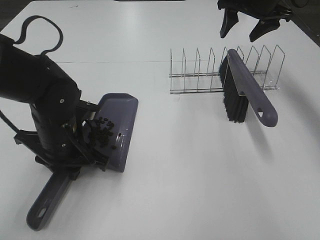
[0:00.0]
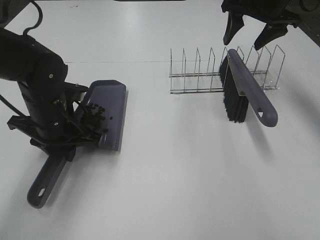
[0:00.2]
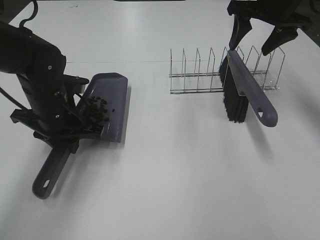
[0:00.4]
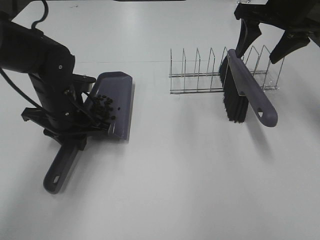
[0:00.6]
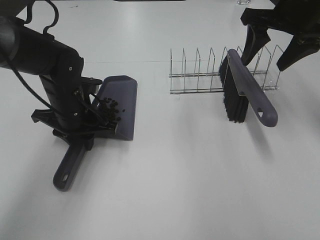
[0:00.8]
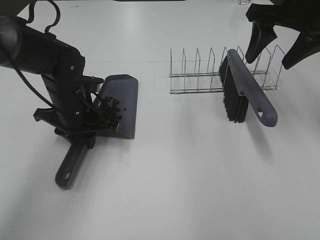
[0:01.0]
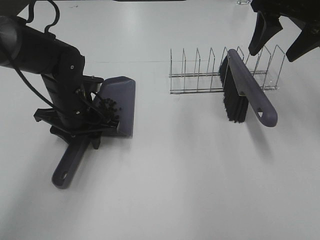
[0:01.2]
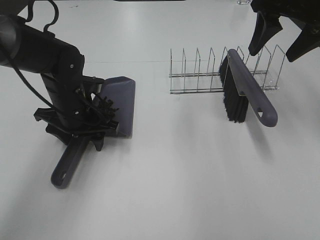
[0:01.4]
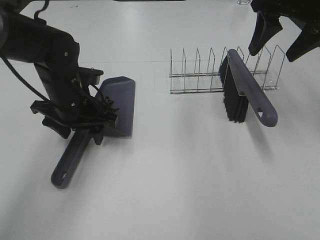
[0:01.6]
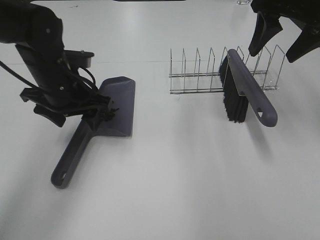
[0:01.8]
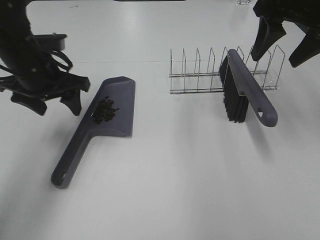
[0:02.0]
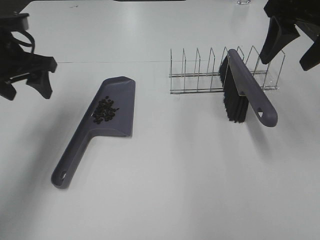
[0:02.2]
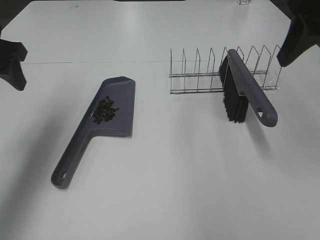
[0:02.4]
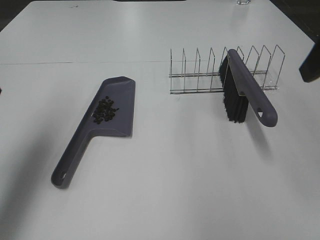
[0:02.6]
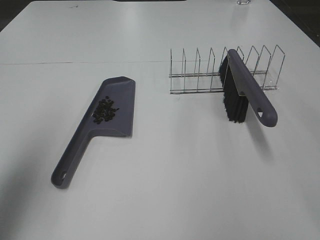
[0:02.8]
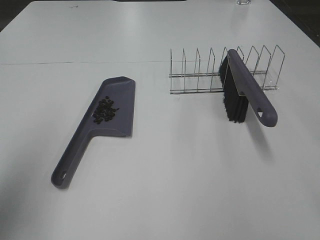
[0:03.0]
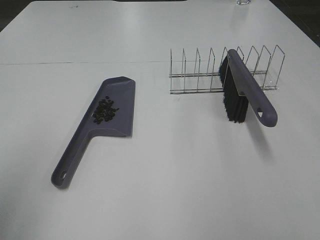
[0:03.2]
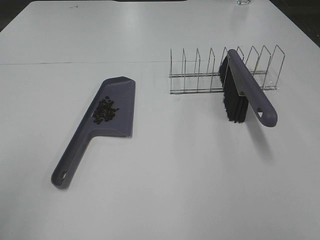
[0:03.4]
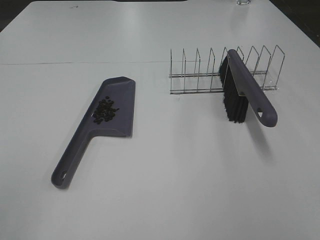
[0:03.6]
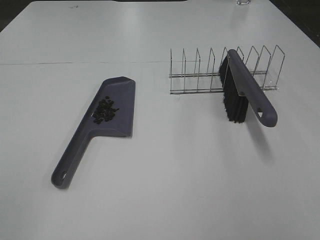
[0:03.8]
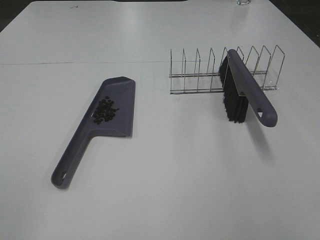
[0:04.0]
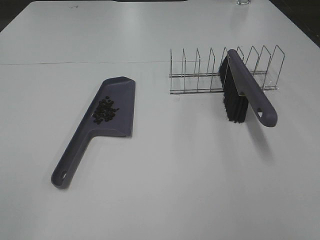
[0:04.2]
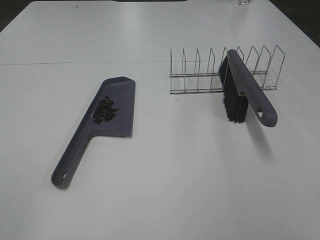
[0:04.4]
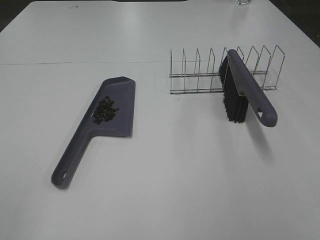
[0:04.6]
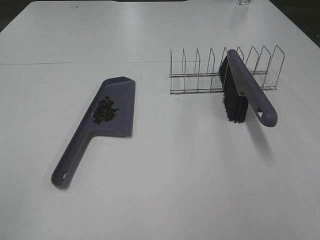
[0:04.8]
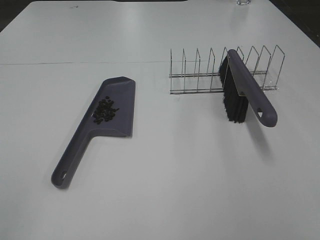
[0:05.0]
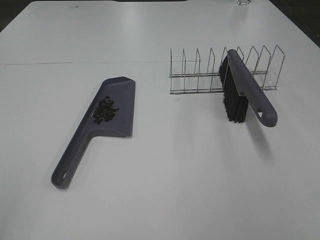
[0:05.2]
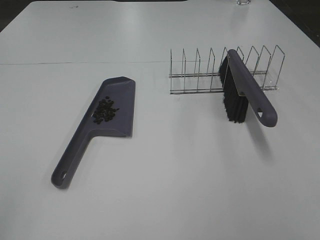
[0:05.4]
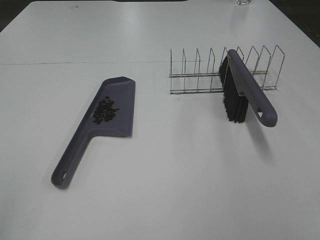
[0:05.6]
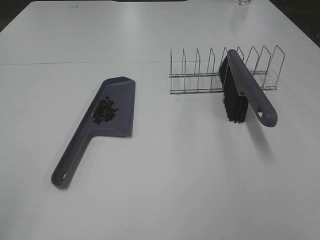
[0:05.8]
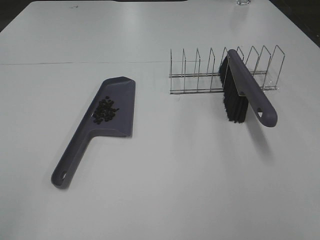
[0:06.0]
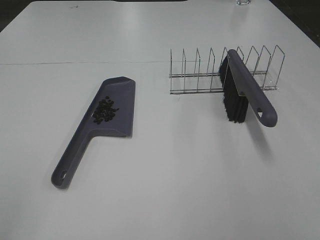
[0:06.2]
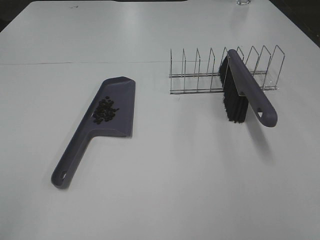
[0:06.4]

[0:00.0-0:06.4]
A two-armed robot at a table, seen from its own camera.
Task of the whole recording: Sweep Coffee Bean.
Step, 0.0 to 1.4 s: Left hand:place the dustpan on the table.
0.0 to 1.6 s: The right gripper goes some 15 cm backward; the left gripper moves forward, some 5 cm, and opens its fingers.
1.6 to 3.2 s: The right gripper goes approximately 30 cm backward, while the left gripper shifts roughly 35 cm backward, upward and to the left.

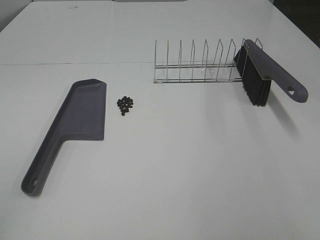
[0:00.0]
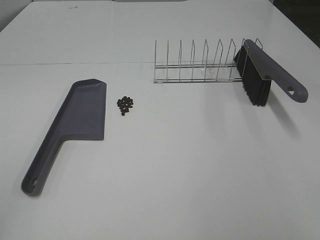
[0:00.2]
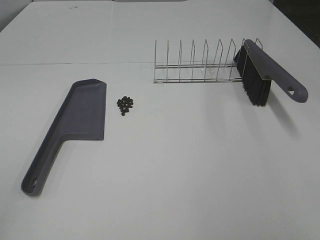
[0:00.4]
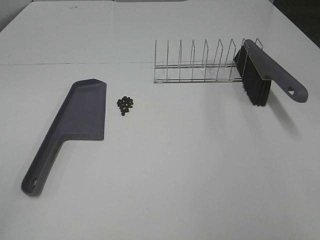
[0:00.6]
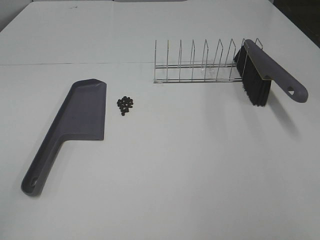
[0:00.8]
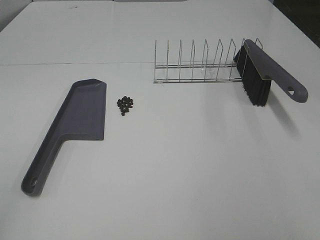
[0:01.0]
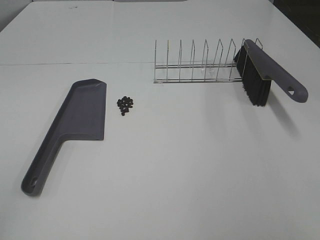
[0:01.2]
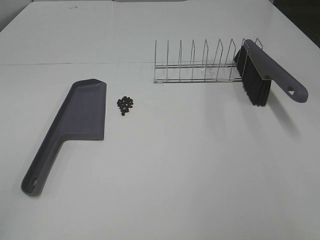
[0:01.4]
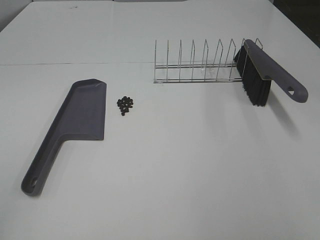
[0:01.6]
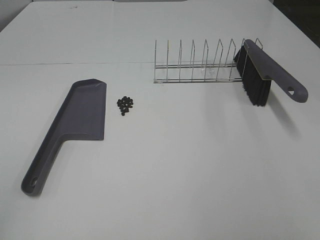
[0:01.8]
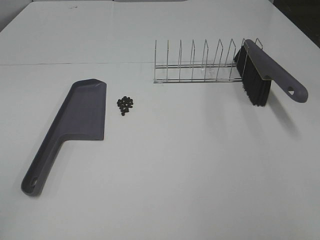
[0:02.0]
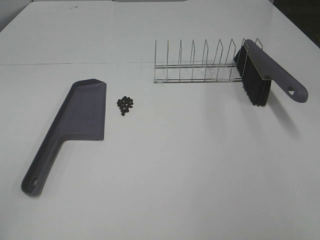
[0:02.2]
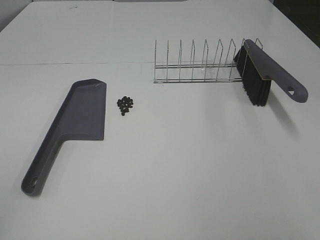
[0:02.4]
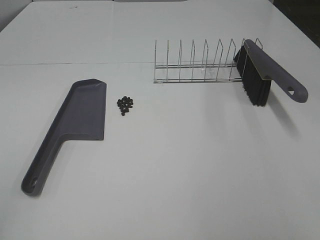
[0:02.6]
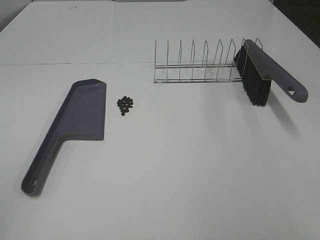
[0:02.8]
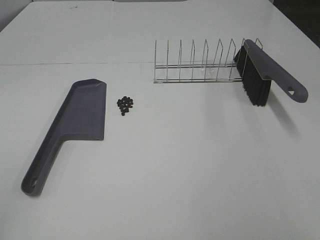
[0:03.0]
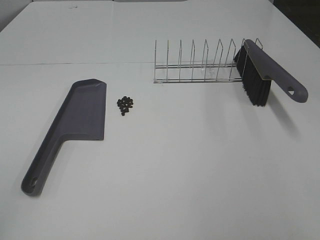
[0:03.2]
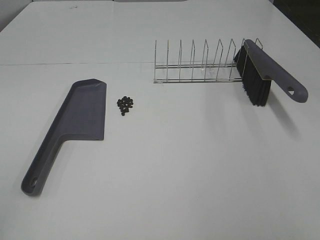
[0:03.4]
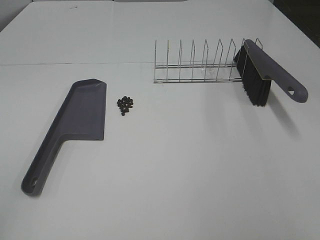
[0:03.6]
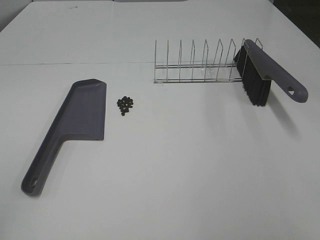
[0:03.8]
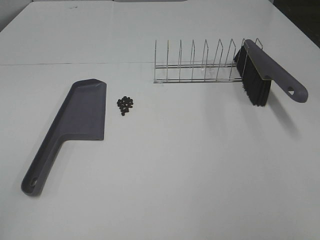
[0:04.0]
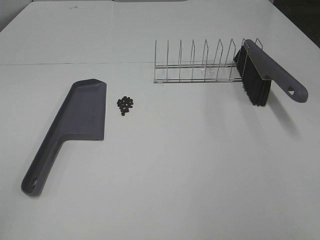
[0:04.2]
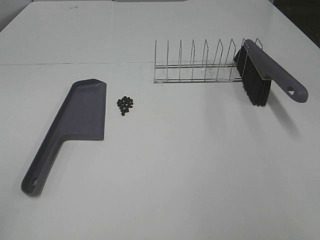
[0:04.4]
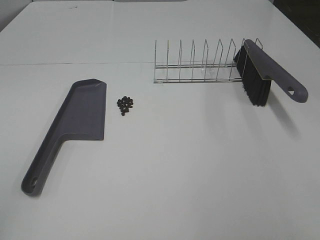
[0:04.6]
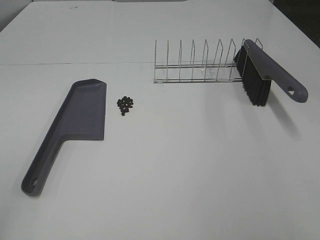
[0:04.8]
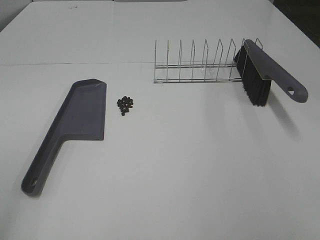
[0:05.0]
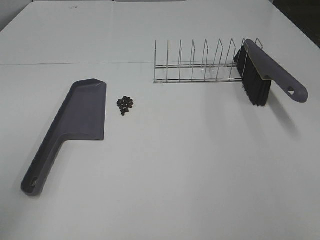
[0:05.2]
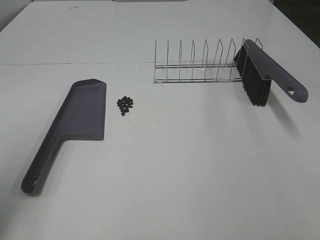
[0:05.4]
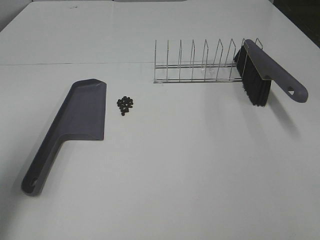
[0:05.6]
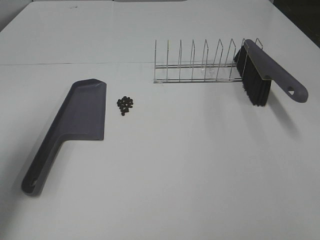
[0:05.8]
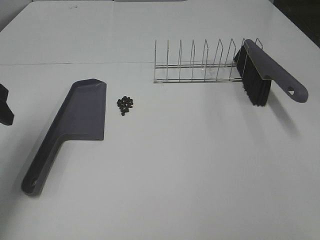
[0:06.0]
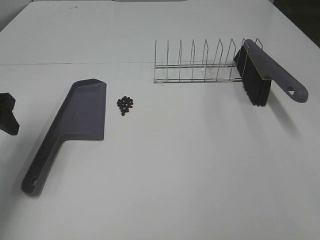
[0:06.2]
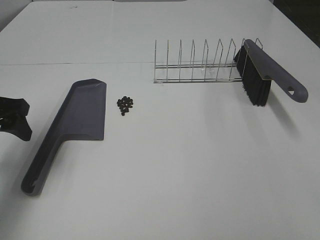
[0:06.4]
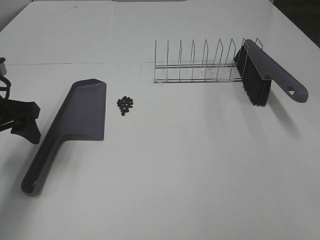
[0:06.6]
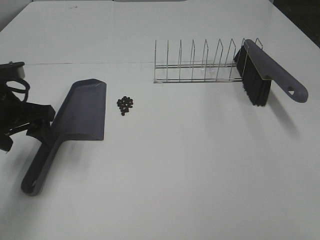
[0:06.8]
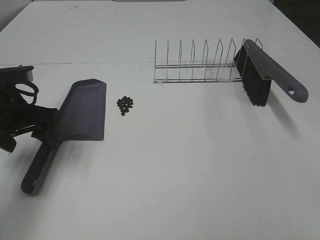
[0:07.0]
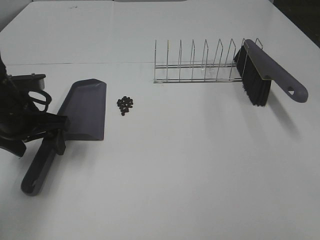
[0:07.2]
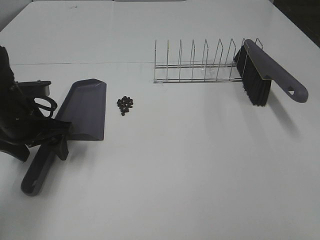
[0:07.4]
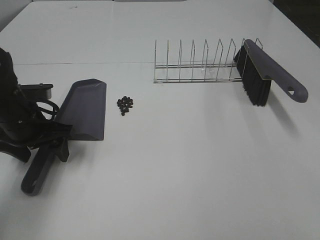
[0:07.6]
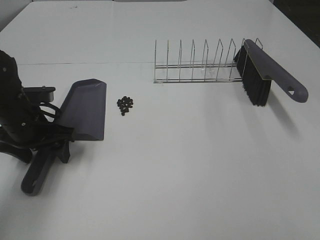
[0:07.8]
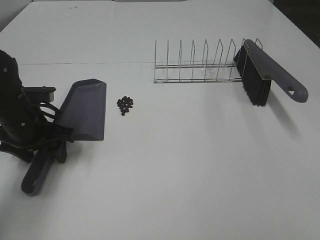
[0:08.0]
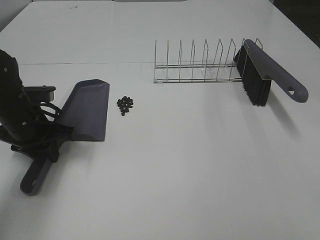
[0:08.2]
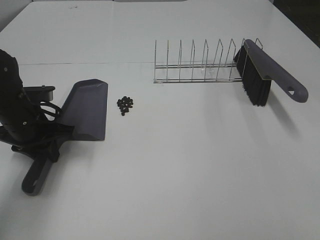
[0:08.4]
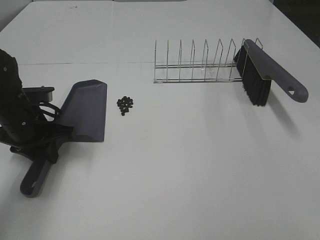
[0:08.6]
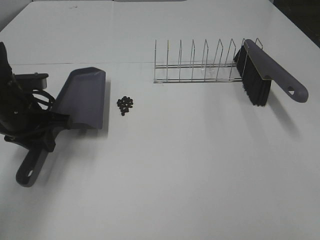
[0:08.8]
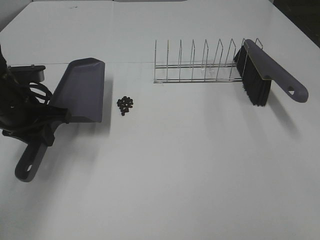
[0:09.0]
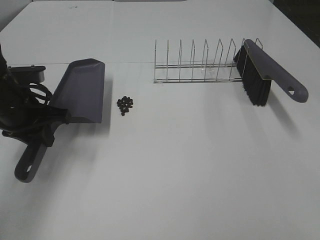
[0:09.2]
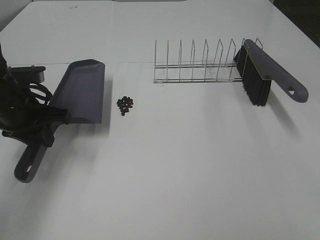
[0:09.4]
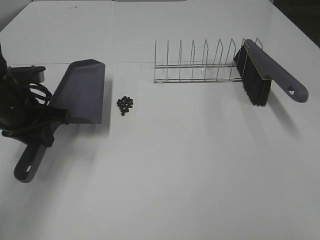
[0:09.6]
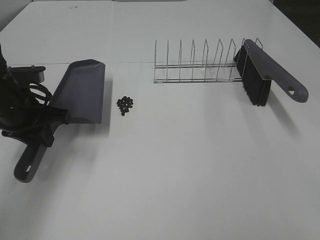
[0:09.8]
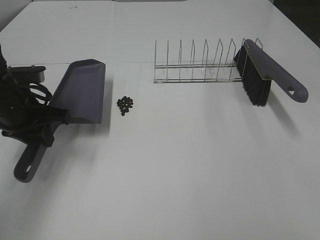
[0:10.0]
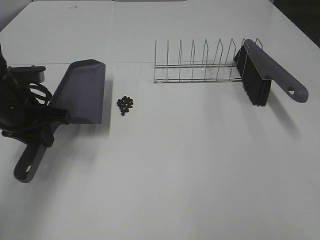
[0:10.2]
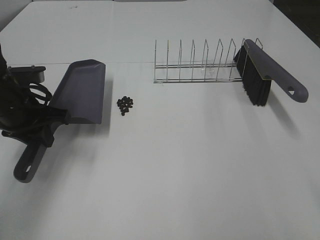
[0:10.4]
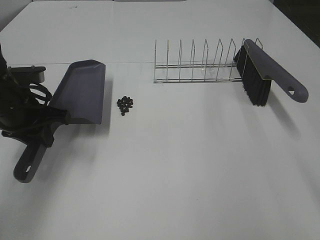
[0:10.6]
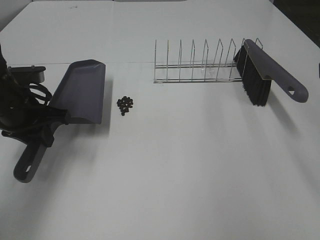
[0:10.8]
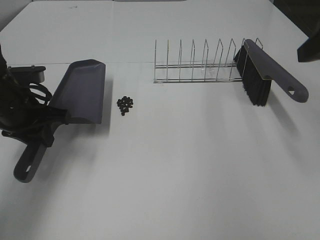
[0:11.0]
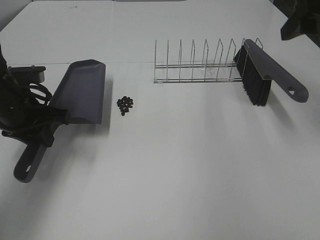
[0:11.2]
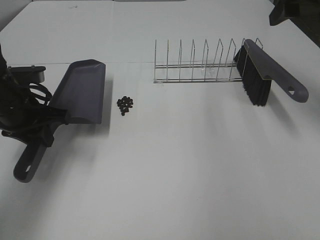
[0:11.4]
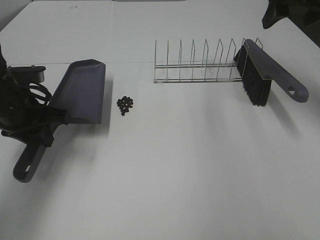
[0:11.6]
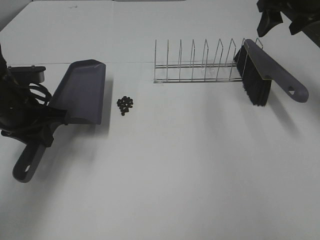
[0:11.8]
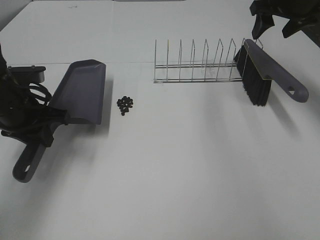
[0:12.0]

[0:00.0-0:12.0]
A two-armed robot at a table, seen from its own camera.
Task of the whole recording: Sweep Coffee Bean.
Step, 0.0 to 8.2 s: Left hand: grab the dustpan.
Step, 8.4 to 9.8 s: Left hand: move the dustpan to the left side of the coffee beans.
0.0 to 4.4 s: Both grippers stay about where they are.
4.4 to 6.0 s: The left gripper shifts approximately 30 cm forward.
6.0 to 7.6 s: The left gripper travels downward and to the right by about 10 cm.
7.6 to 9.0 s: The left gripper closes up.
10.4 to 12.0 s: The right gripper travels forward by approximately 40 cm, and closes.

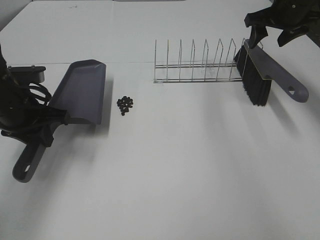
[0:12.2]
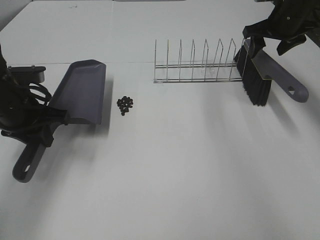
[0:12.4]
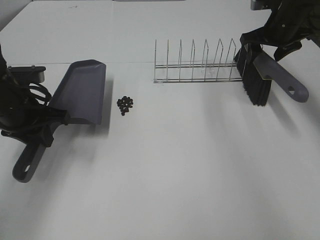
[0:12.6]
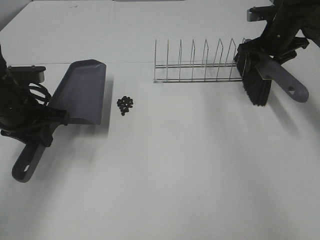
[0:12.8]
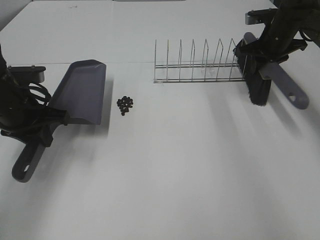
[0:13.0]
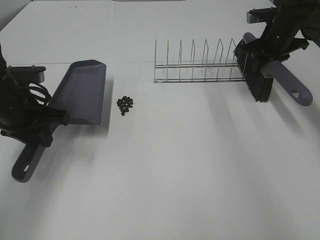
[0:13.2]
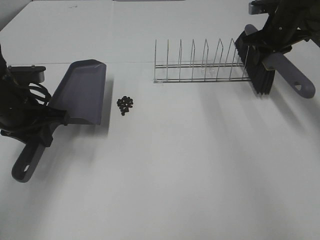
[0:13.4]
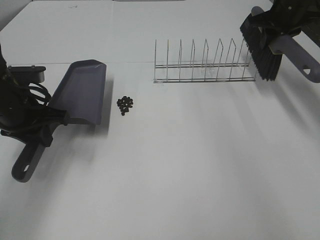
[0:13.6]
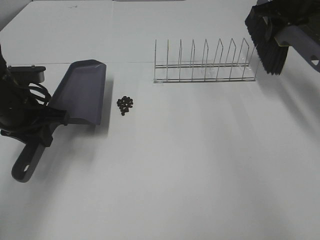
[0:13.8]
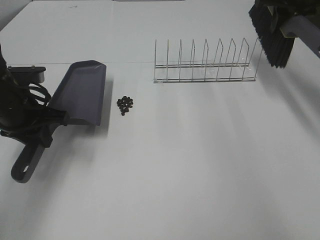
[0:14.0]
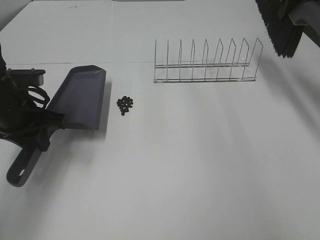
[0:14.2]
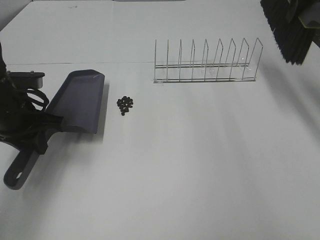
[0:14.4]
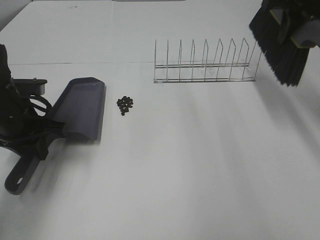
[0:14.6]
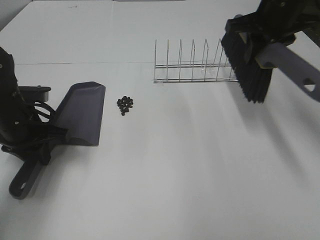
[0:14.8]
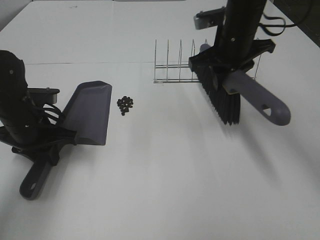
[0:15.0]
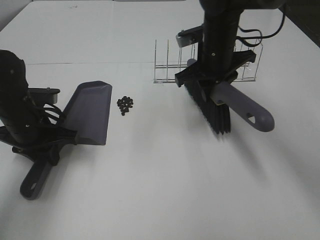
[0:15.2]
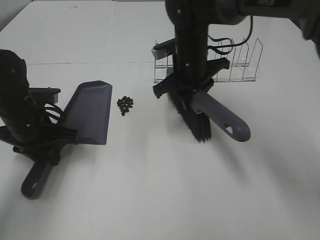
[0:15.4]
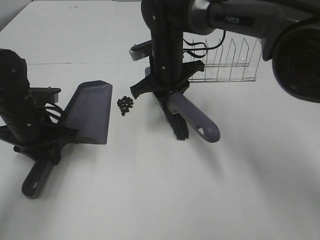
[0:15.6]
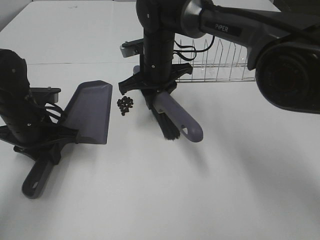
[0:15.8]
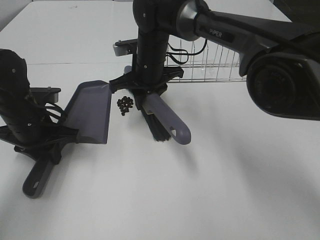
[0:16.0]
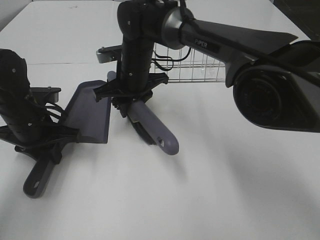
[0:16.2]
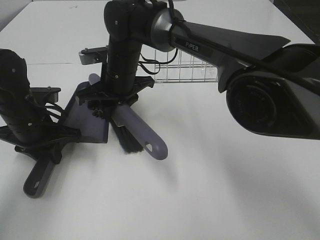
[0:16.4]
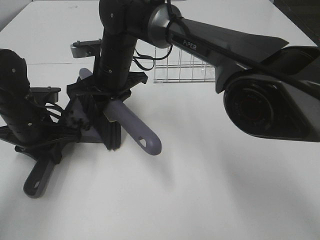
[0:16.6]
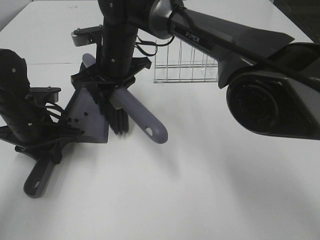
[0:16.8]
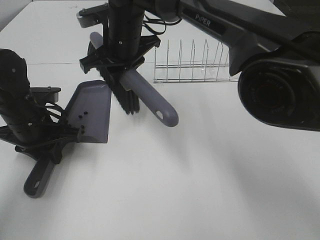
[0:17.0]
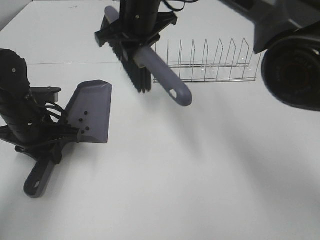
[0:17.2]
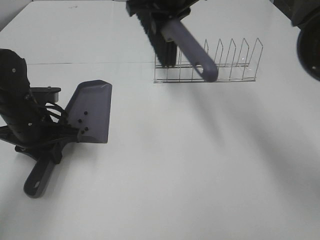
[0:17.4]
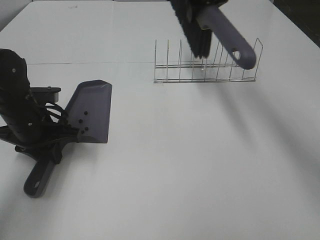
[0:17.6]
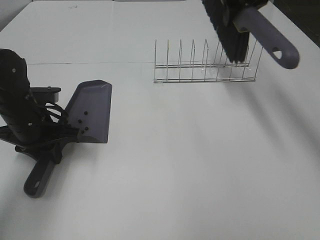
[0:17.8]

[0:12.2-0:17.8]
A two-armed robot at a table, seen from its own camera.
Task of the whole recording: Sweep Coffee Bean.
Step, 12.2 to 16.8 s: Right hand:sweep the coffee beans into the dustpan.
12.2 to 13.6 s: The right gripper goes downward and returns, approximately 10 cm each way, and closes its fingers.
13.6 to 15.0 s: The right gripper shifts approximately 20 cm to the left and backward.
15.0 to 16.4 s: The right gripper shifts some 20 cm to the left.
16.4 to 17.8 s: The right gripper goes approximately 30 cm to the right and upward.
